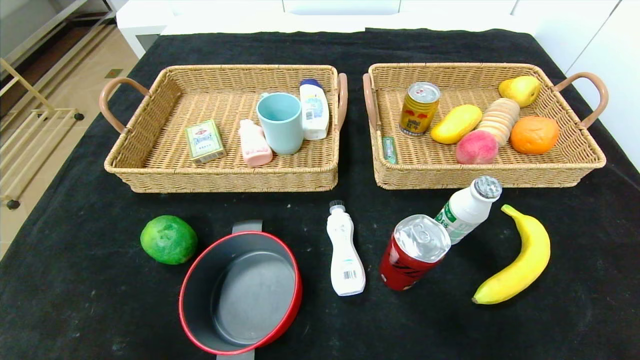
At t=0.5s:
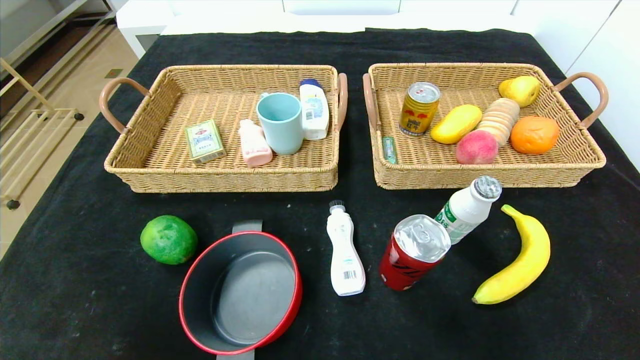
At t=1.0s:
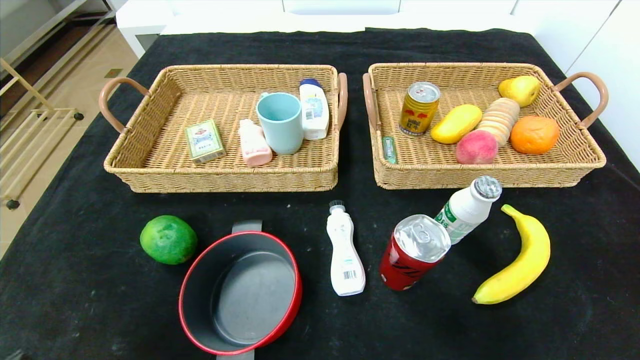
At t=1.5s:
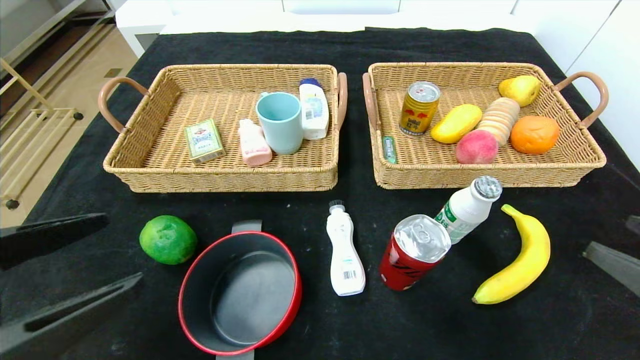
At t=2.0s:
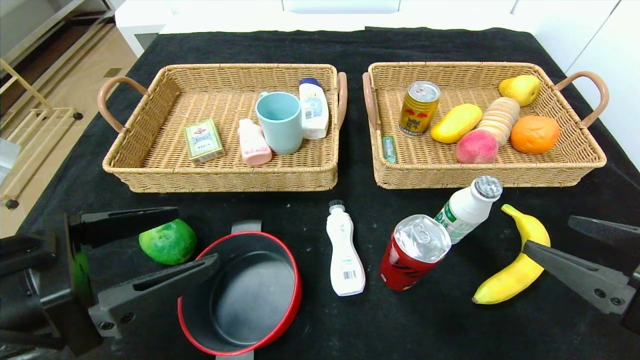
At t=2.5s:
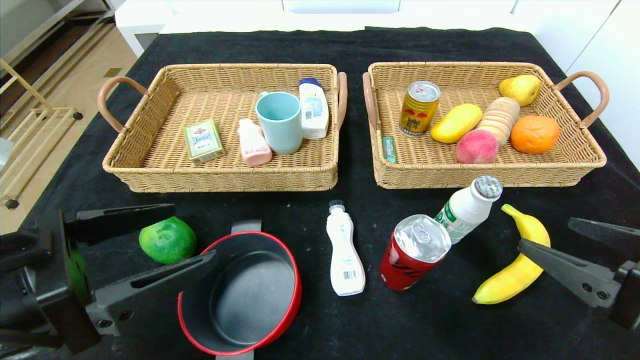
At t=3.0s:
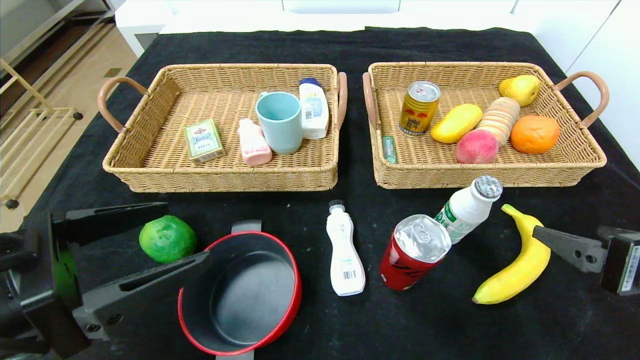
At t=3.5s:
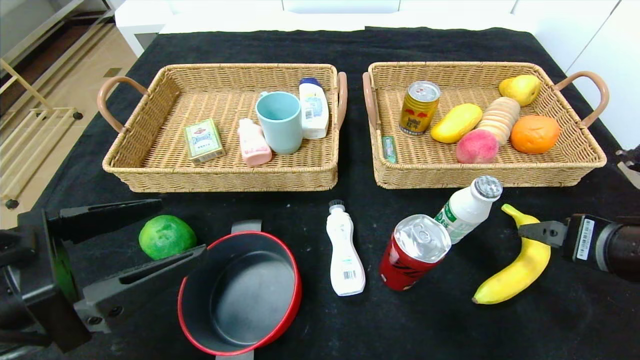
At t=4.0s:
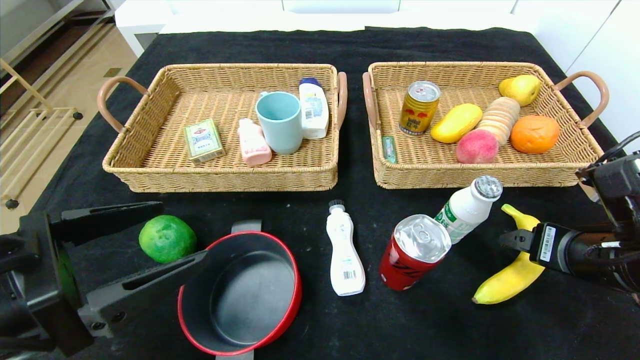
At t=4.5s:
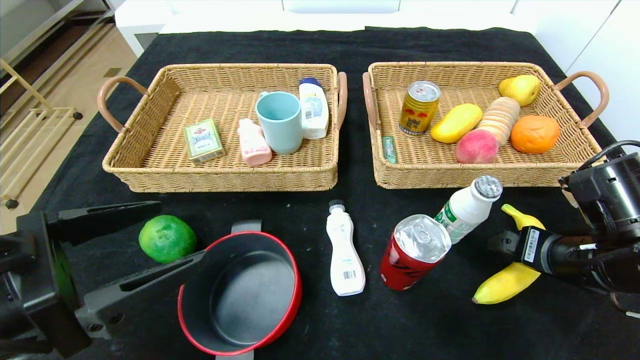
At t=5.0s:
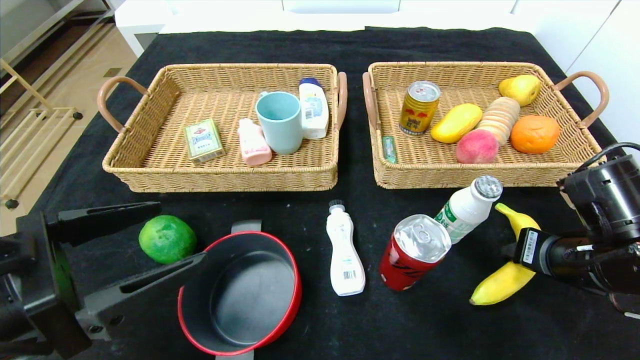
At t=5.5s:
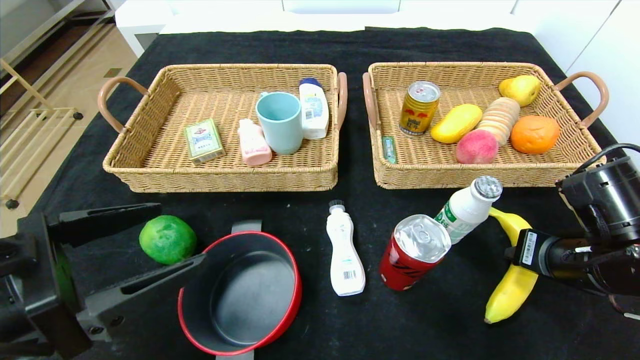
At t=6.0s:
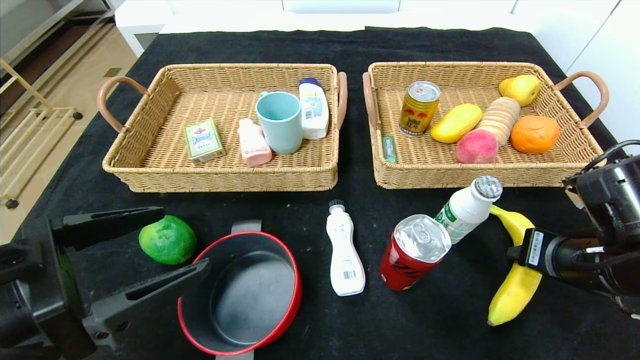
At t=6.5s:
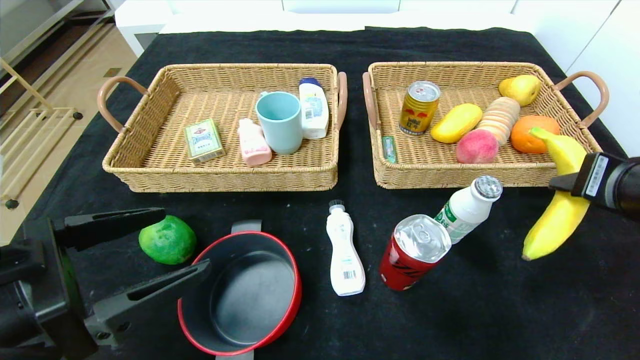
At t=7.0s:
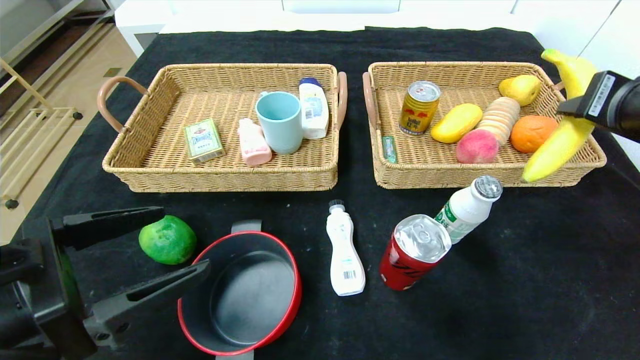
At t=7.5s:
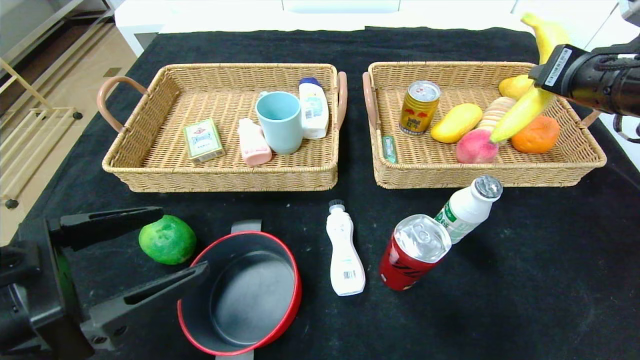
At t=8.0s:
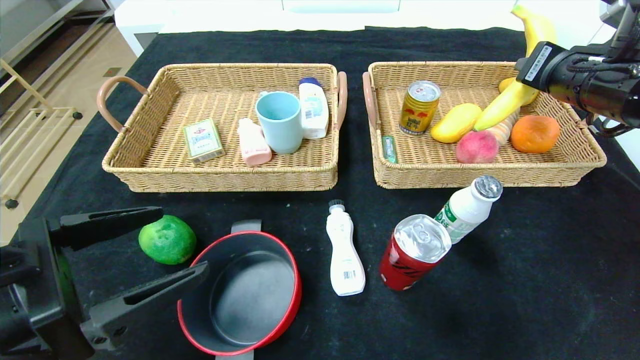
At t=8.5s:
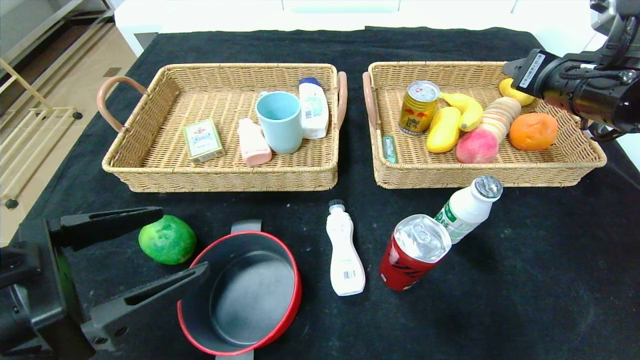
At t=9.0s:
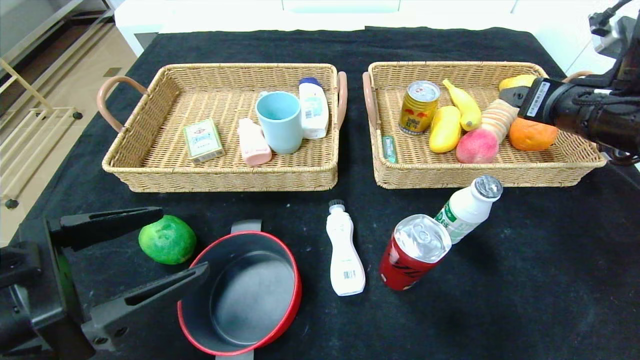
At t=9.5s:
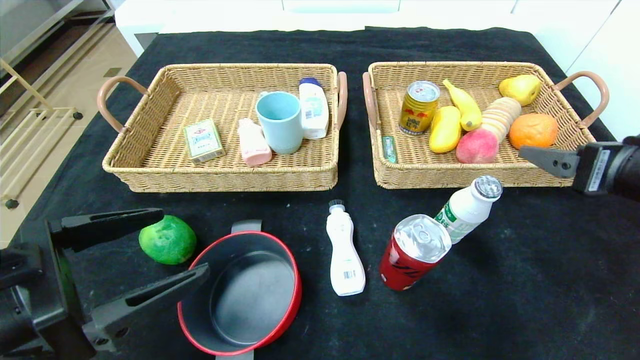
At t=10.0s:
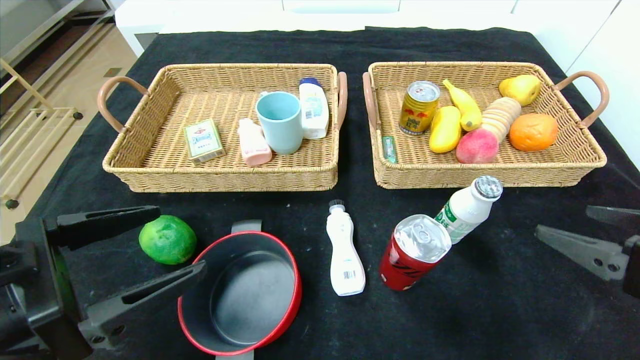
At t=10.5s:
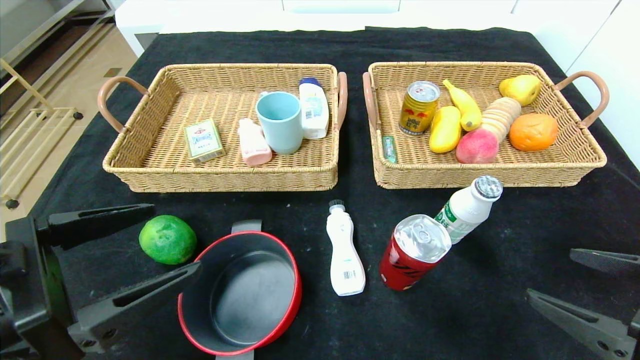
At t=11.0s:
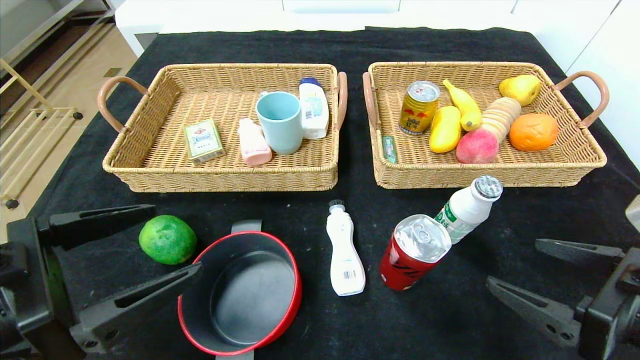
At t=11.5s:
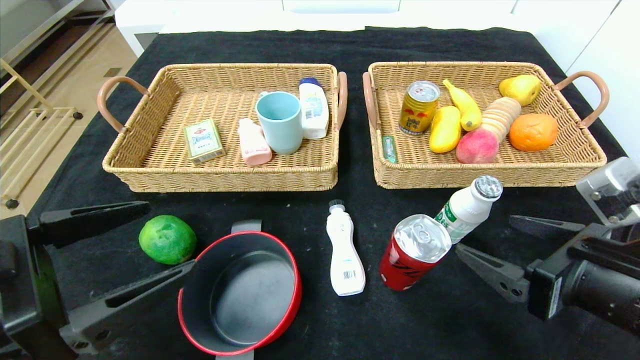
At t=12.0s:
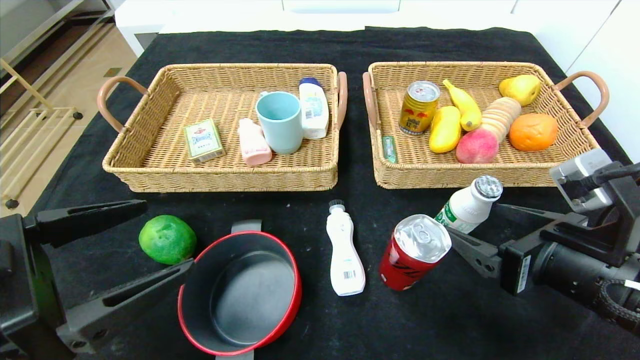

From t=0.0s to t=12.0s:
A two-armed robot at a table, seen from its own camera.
Step, from t=0.0s to t=8.0s: Grasp the banana and put it in the right basket.
From t=0.0s to t=2.0s: The right gripper shifts about 20 cm forward, upward and to the left, while the left gripper travels upward and forward by approximately 20 cm.
From t=2.0s to t=4.0s: The right gripper goes approximately 10 cm forward.
From t=4.0s to t=6.0s: The right gripper closes up.
From t=6.0s to t=8.0s: The right gripper heads upward and forward, covering some 20 cm.
From t=8.0s to t=10.0s: The right gripper shifts about 20 cm backward and downward, and opens up.
From t=10.0s to t=12.0s: The right gripper is displaced to the left by some 10 cm.

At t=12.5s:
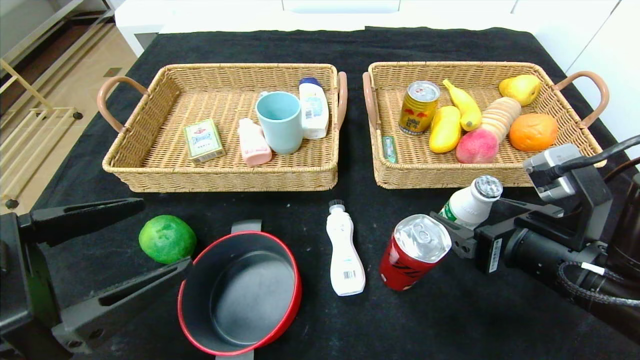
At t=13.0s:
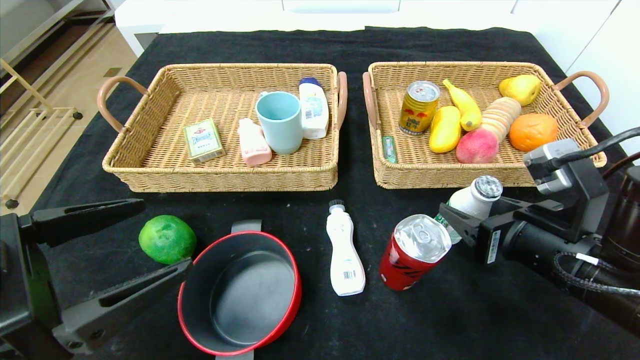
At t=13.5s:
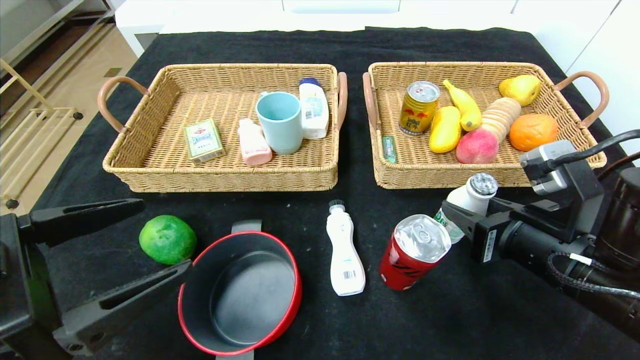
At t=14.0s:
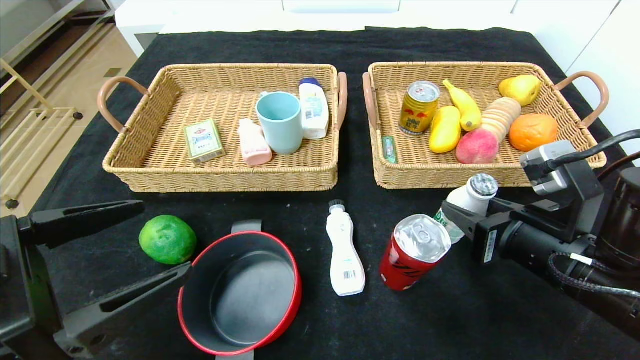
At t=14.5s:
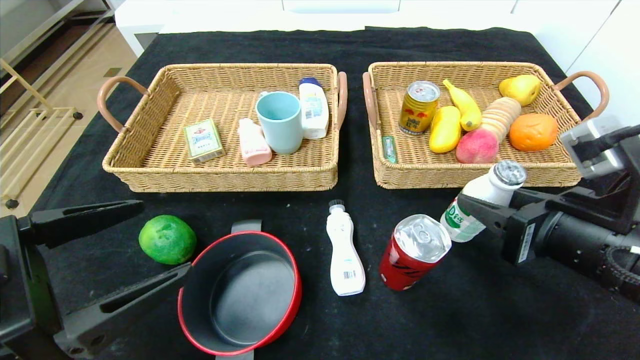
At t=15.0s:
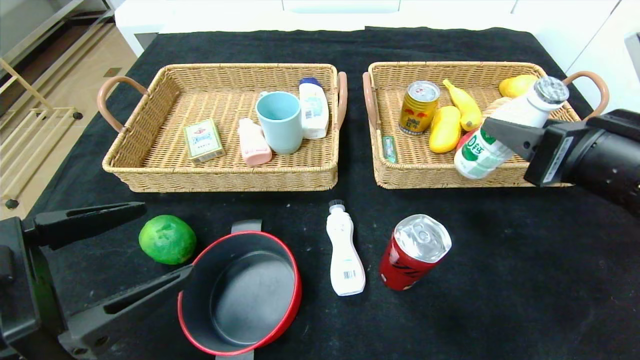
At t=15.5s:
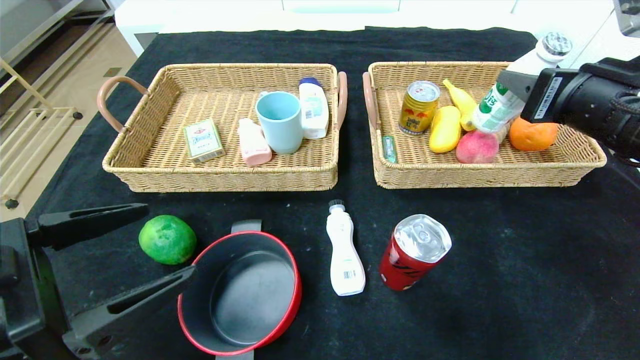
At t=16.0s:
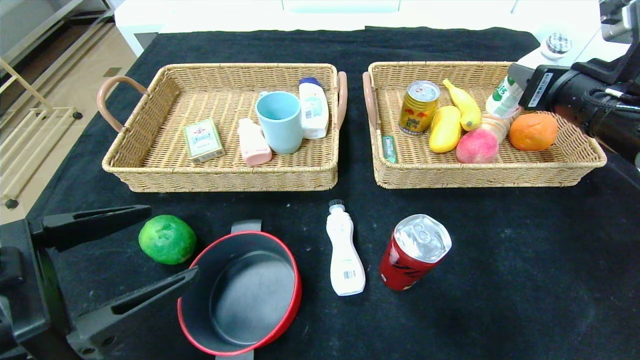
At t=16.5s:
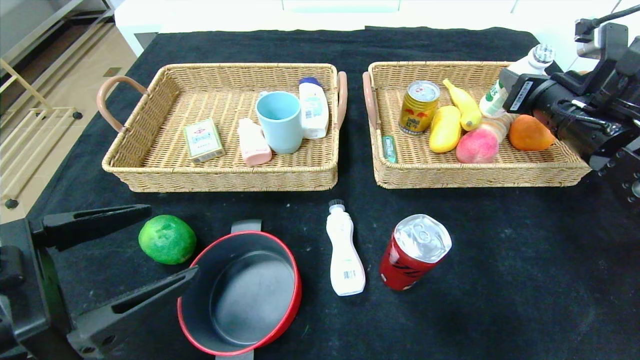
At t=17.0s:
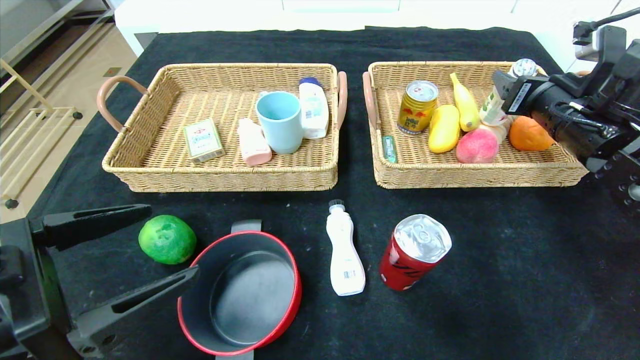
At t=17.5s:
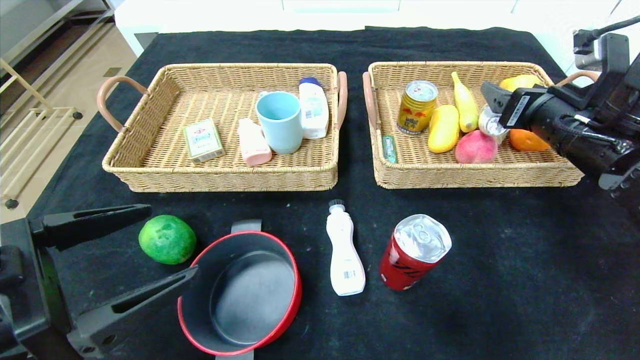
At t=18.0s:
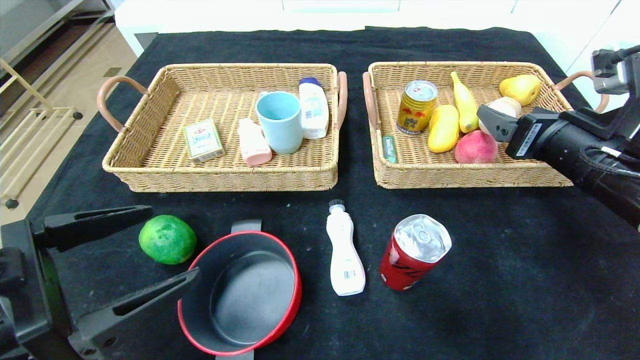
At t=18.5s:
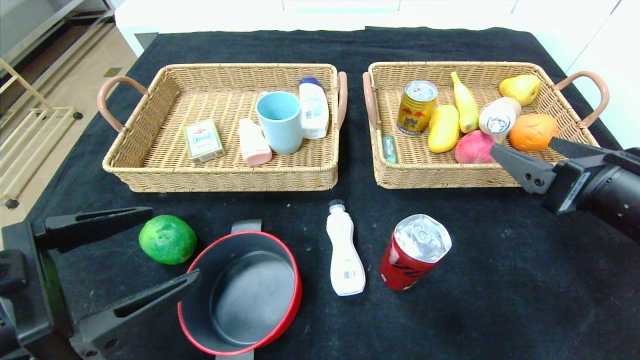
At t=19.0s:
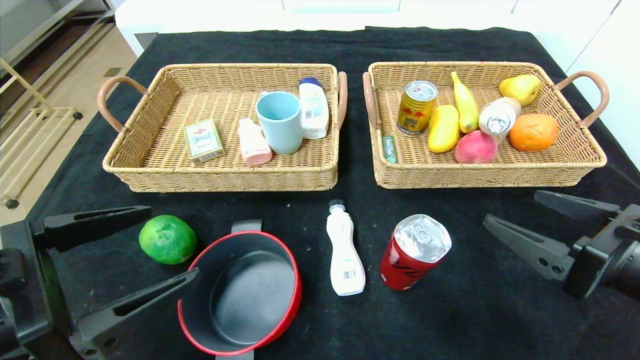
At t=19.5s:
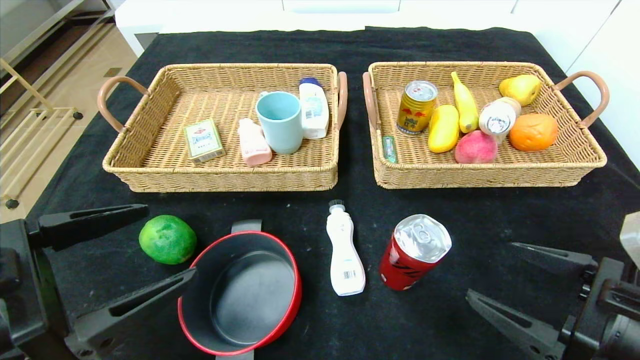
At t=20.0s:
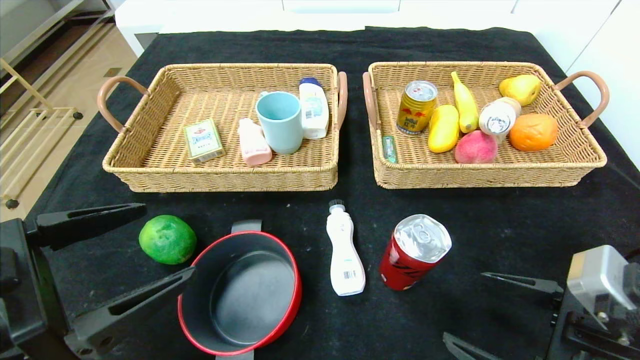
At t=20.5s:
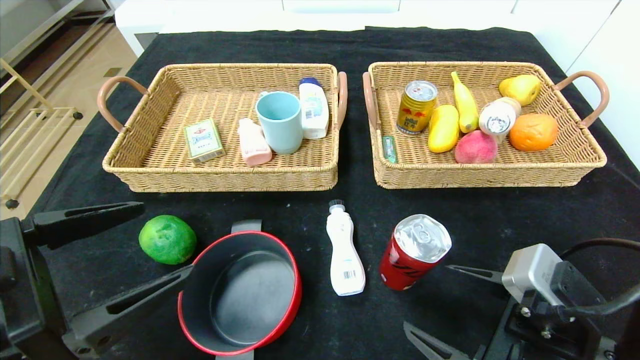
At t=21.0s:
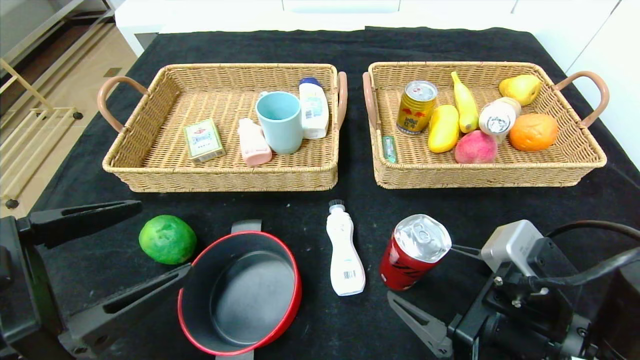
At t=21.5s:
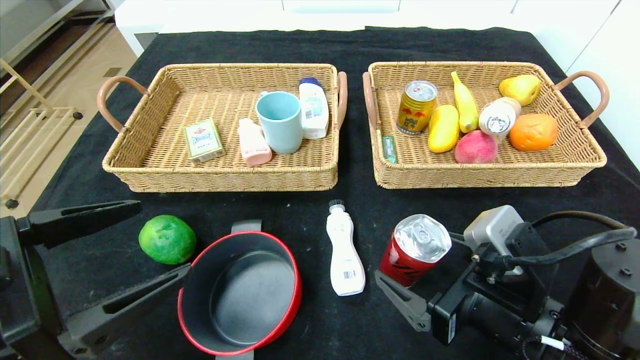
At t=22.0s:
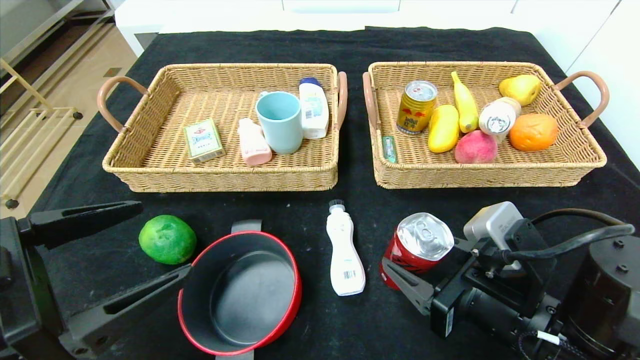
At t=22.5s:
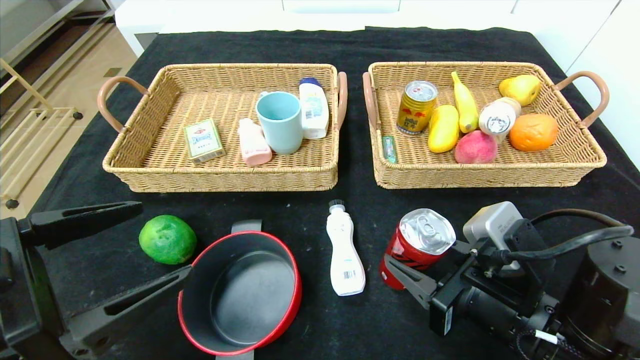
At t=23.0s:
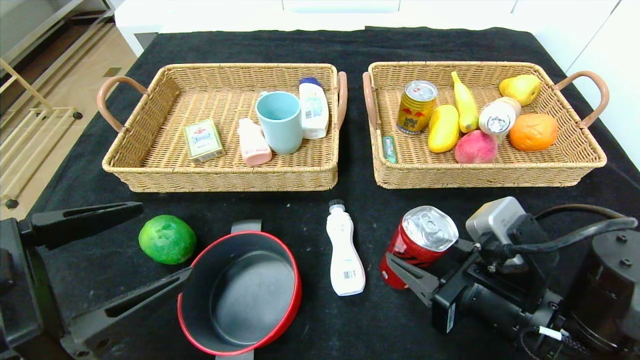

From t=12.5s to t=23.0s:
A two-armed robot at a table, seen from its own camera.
Step, from t=12.5s to t=17.5s: Grasp the ad milk and put it in the right basket.
From t=12.5s to t=14.5s: The right gripper closes.
From t=14.5s to t=16.5s: The right gripper is displaced forward and to the right by about 15 cm.
From t=16.5s to t=19.0s: The right gripper is displaced backward by roughly 20 cm, and opens.
From t=19.0s to t=21.0s: The right gripper goes approximately 10 cm to the left and downward.
From t=21.0s to t=23.0s: The right gripper closes up.
